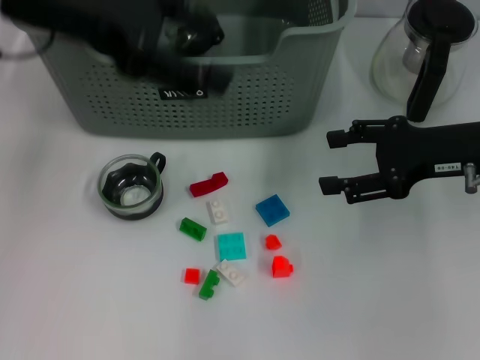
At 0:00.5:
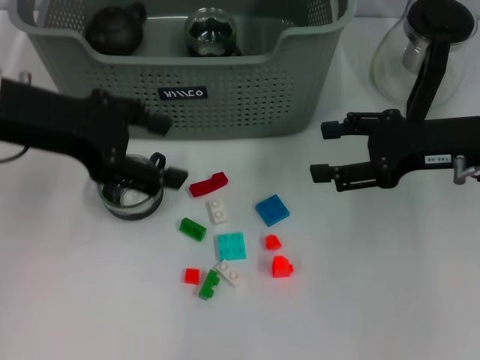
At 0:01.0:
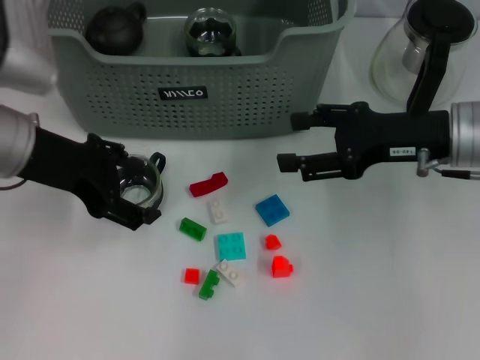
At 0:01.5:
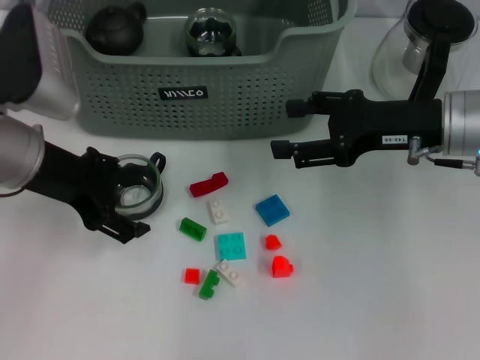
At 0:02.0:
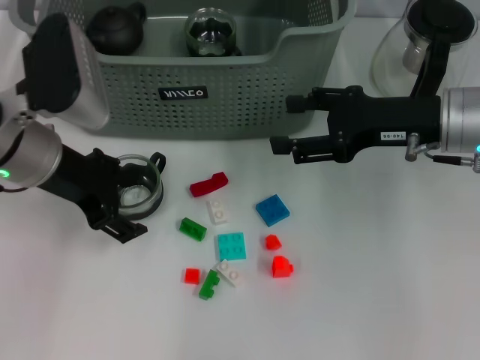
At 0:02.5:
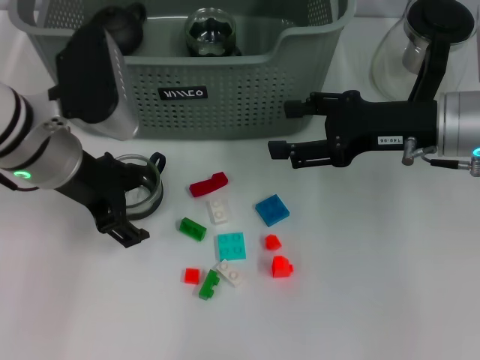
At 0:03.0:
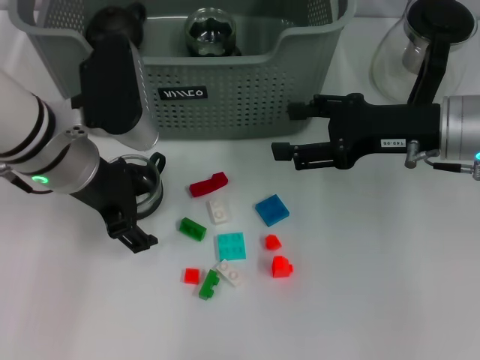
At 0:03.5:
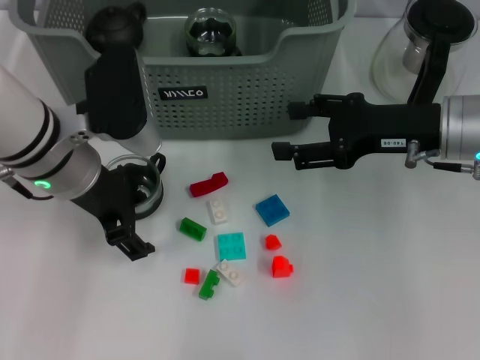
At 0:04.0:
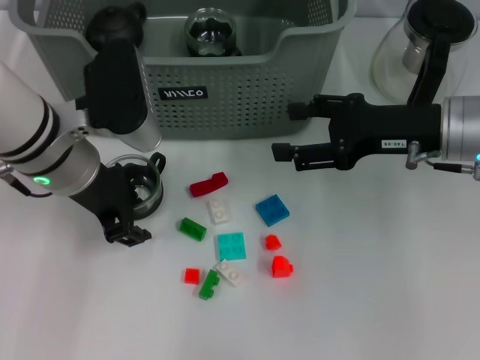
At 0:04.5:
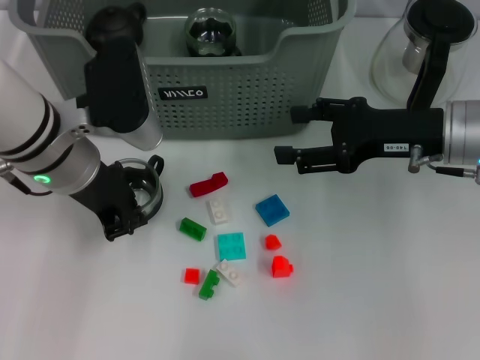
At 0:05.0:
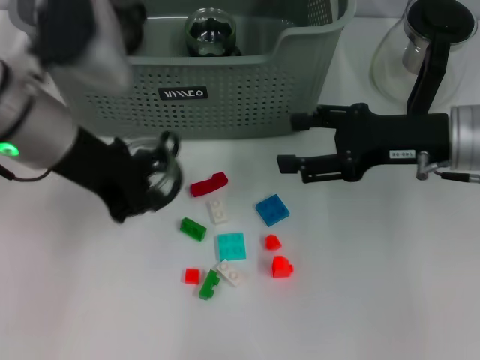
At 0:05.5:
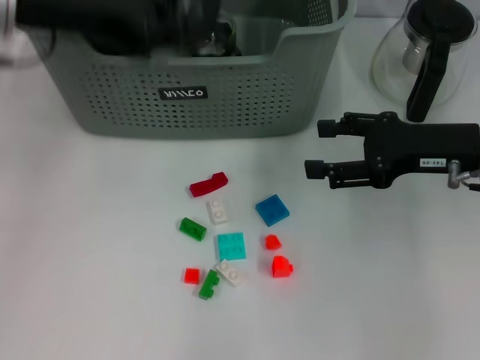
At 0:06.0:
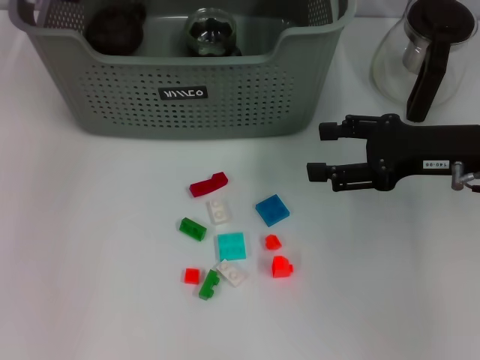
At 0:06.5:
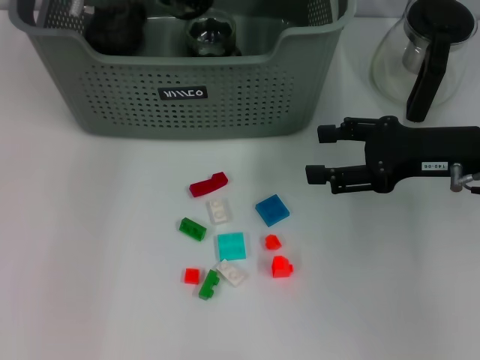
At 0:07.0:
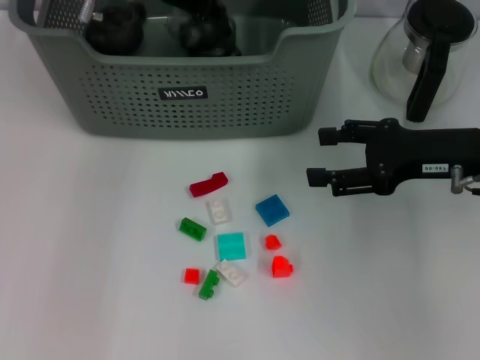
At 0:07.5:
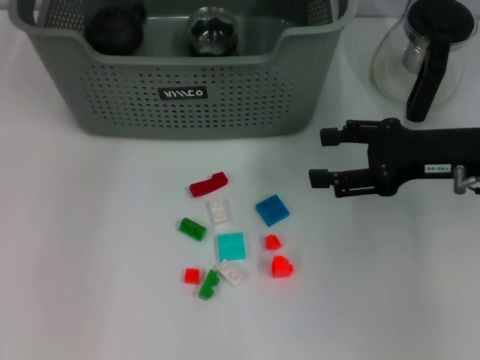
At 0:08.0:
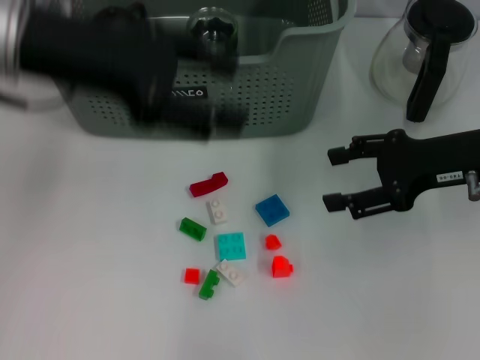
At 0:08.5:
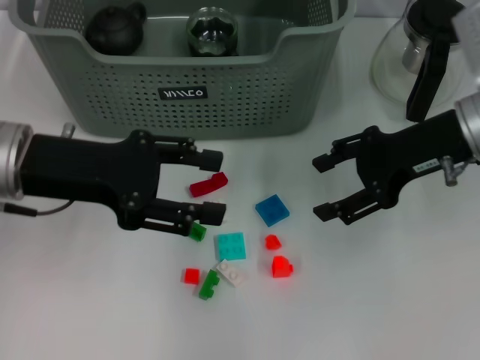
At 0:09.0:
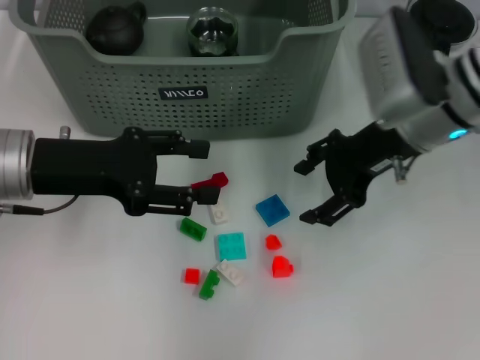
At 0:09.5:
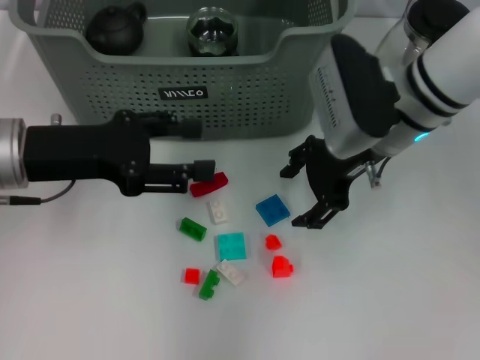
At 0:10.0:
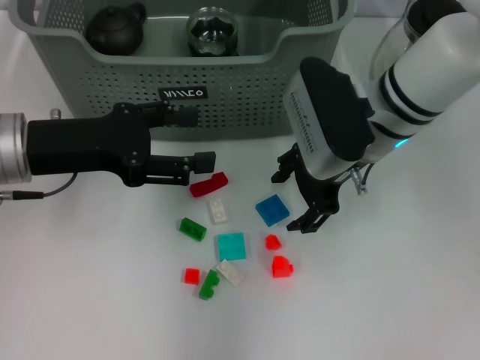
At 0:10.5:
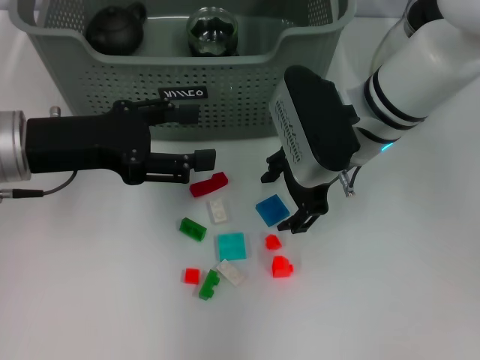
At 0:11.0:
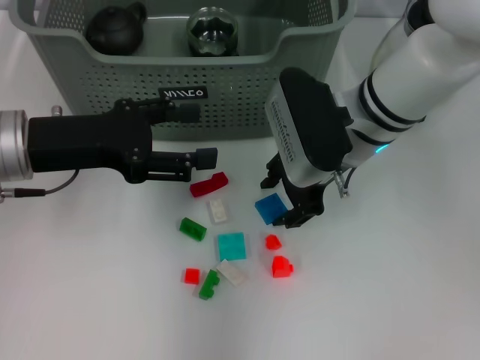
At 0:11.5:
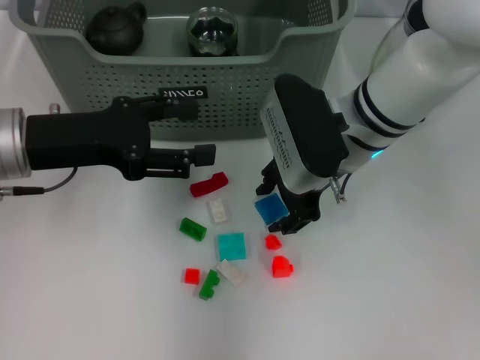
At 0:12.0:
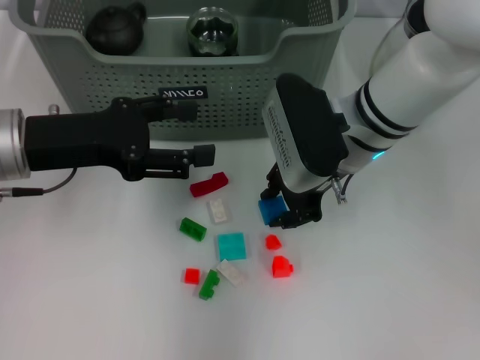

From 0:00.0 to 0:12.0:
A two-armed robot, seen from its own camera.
Task of the whole recording: pick up the teacup on the table and place it into the storage bin, pick up the block on the table and place it into the storage bin.
Step, from 0:00.0 to 0:04.0: Grasp the cup with left gripper.
Step, from 0:04.5 to 0:07.5: Place the cup in the storage box with left gripper.
Step, from 0:08.0 to 0:12.0: Grasp the dark blue block with right gripper.
From 0:00.0 to 0:02.0: The left gripper shifts some 15 cm downward.
From 0:02.0 to 0:04.0: The grippers stay close to where they were, moving slightly.
From 0:04.0 to 0:06.0: The left gripper goes roughly 15 cm forward and upward, and closes up.
From 0:06.0 to 0:08.0: The left gripper shifts about 15 cm backward, and opens its fingers.
From 0:08.0 to 0:10.0: The left gripper travels downward by approximately 10 cm, while the right gripper is displaced to the left by about 15 cm.
From 0:10.0 to 0:12.0: The right gripper closes its fingers.

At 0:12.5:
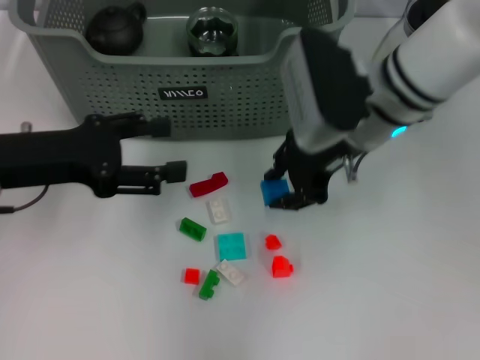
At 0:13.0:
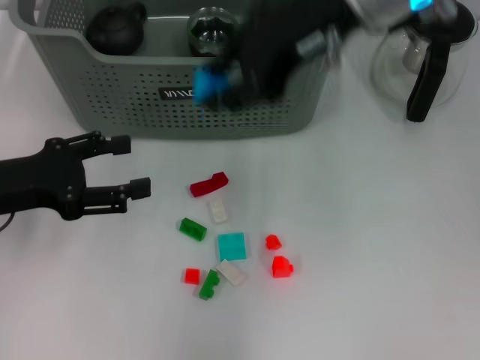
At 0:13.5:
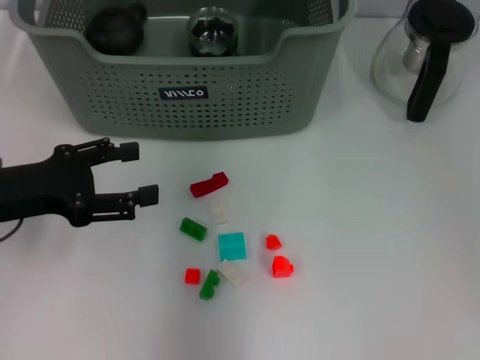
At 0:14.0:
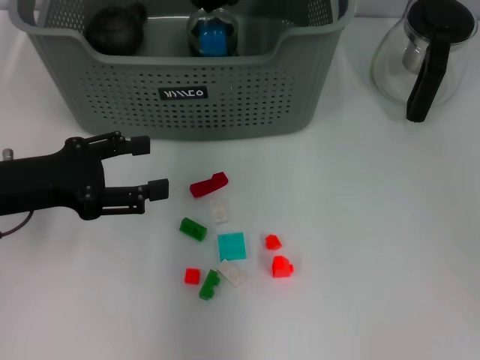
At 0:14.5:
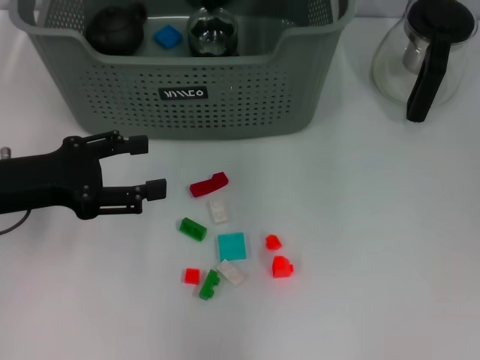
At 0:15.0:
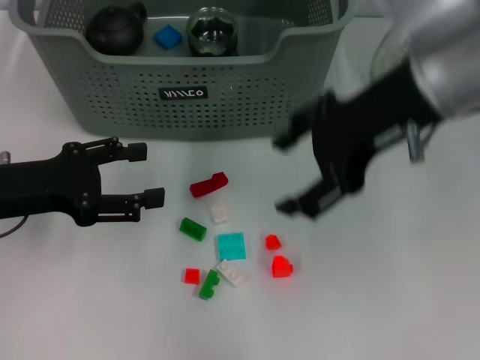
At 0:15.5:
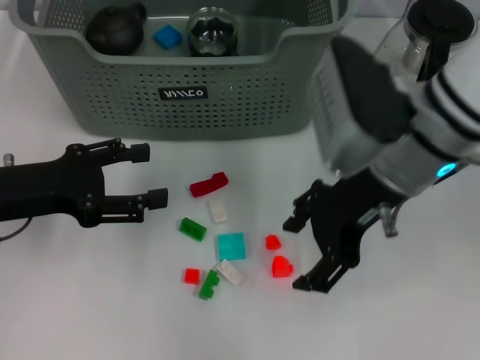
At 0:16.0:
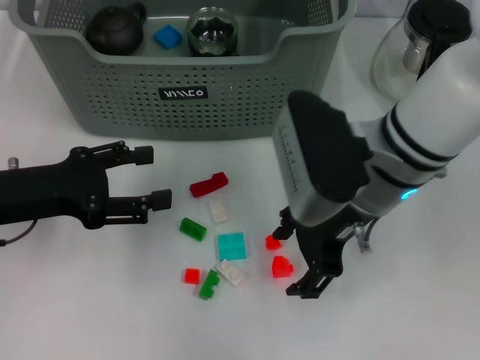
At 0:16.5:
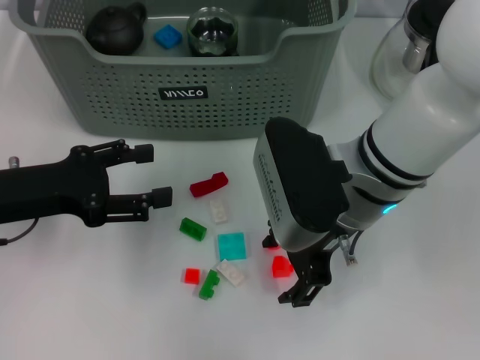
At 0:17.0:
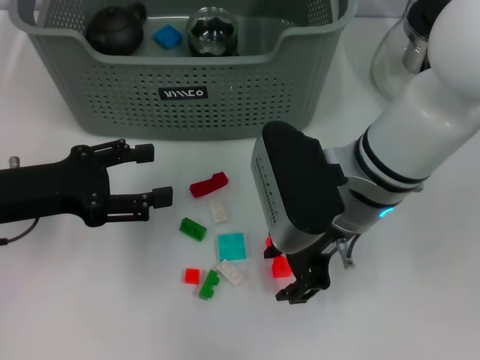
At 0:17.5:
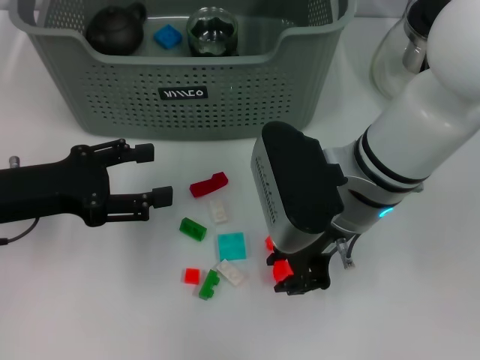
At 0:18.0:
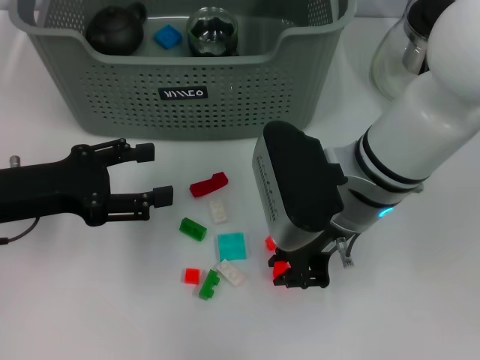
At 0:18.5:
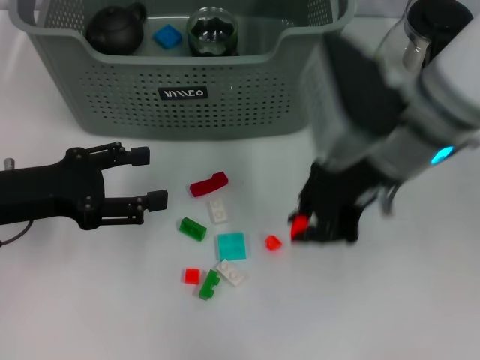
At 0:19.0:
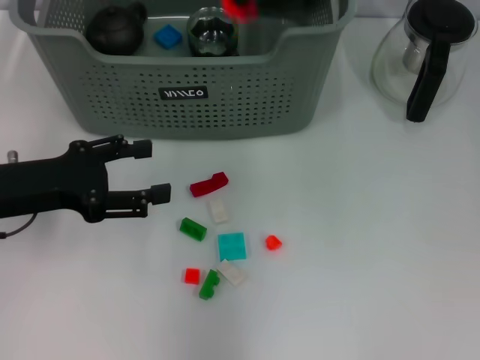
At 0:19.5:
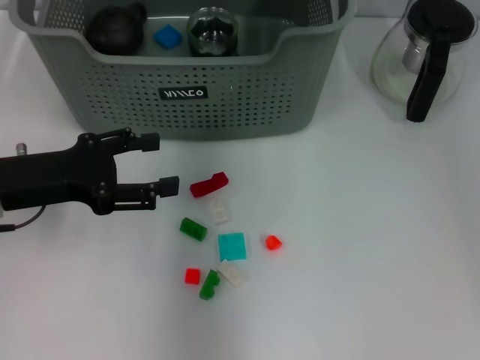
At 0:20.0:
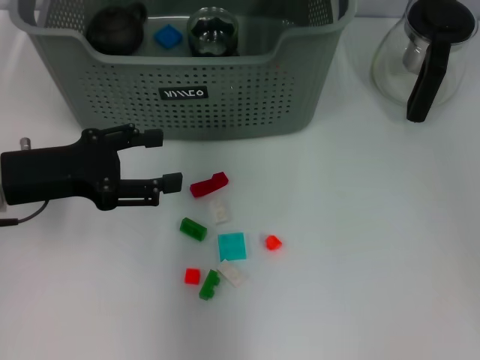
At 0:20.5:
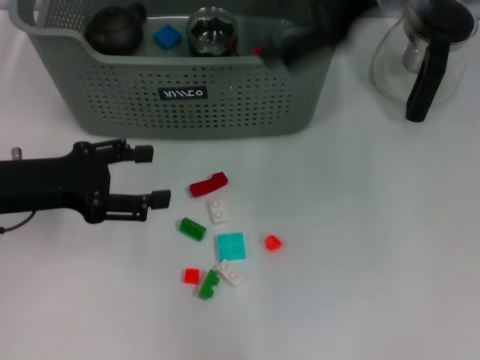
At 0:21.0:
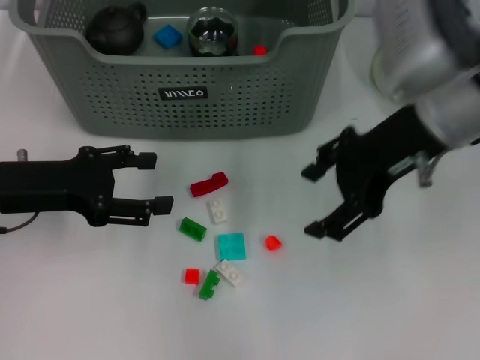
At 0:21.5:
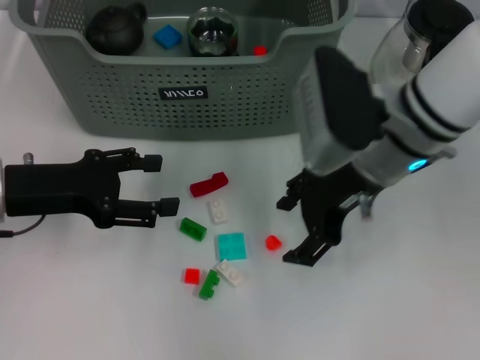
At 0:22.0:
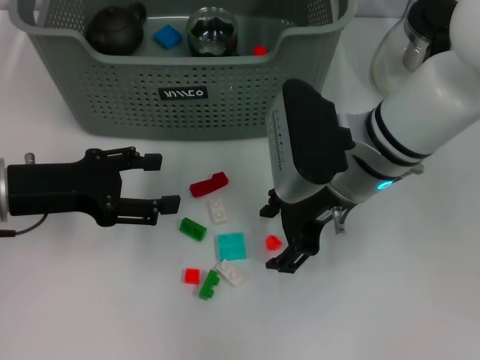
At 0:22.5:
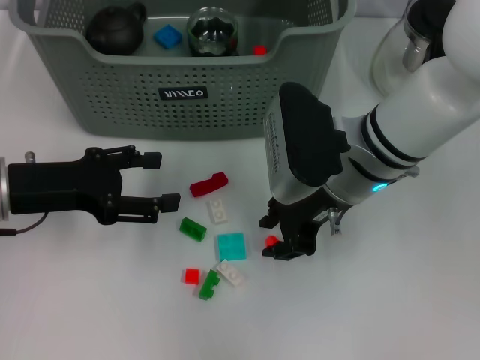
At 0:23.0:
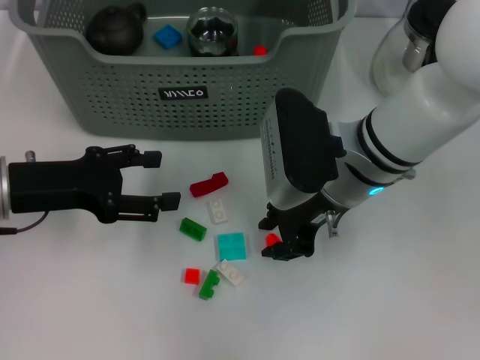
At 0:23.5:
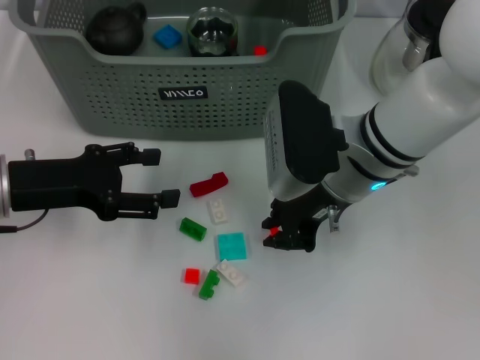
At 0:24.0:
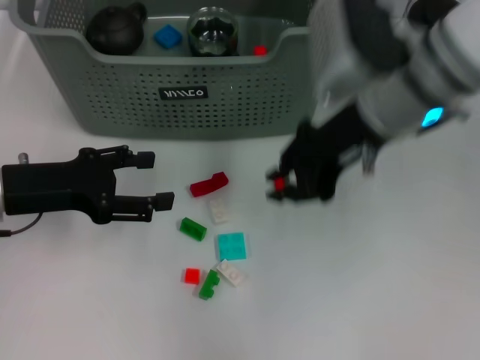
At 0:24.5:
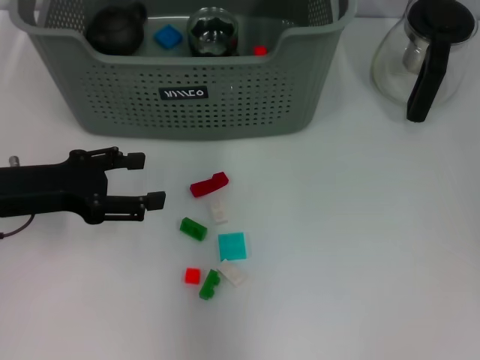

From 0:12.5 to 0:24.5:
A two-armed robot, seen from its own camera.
Task of the whole recording: pick up the teacup on the table and place it into the storage bin, pick up the block on the table and place it into the storage bin.
Step, from 0:12.5 to 0:14.0: Place the dark blue block in the storage box with right gripper.
Step, from 0:14.5 to 0:17.5: Grasp the orange block with right gripper.
Step, from 0:18.5 to 0:20.0: Place the orange block in the storage box with right gripper.
Step, from 0:20.5 to 0:23.0: Grasp the orange block with right gripper.
From 0:12.5 to 0:14.5: The right gripper moves up and down over some 15 cm, changing direction 2 times, and opens its fingers.
From 0:14.5 to 0:16.5: The right gripper travels downward and backward by about 20 cm.
From 0:16.5 to 0:18.5: The right gripper ends up about 5 cm from where it was, and closes up.
From 0:18.5 to 0:20.5: The right gripper moves up and down over about 15 cm, changing direction 2 times, and opens.
From 0:20.5 to 0:22.5: The right gripper moves downward, about 15 cm.
From 0:22.5 to 0:24.5: The right gripper moves upward, approximately 25 cm, and closes.

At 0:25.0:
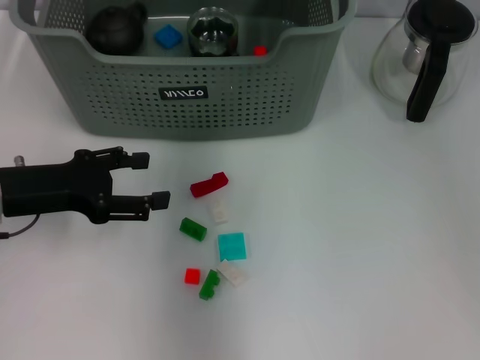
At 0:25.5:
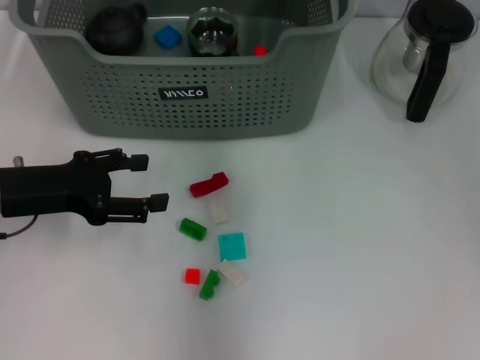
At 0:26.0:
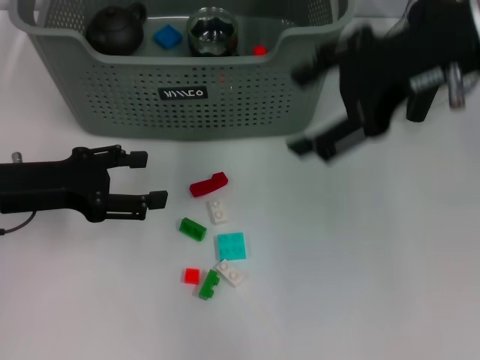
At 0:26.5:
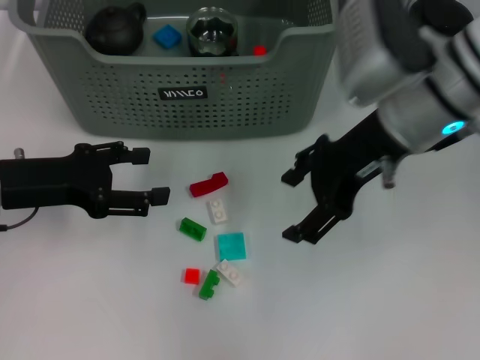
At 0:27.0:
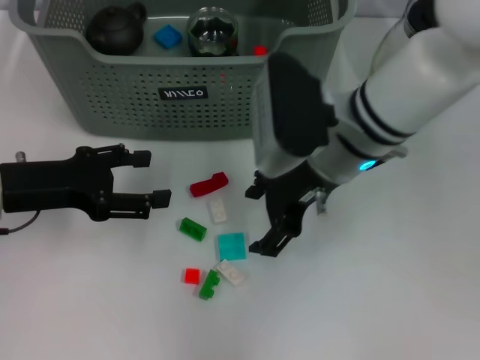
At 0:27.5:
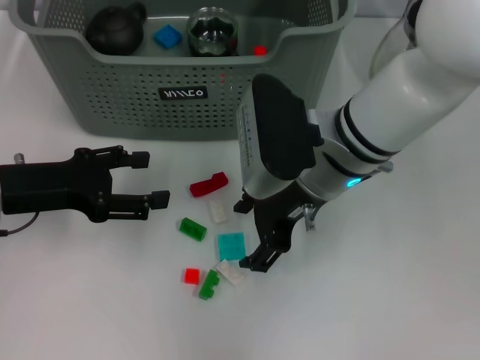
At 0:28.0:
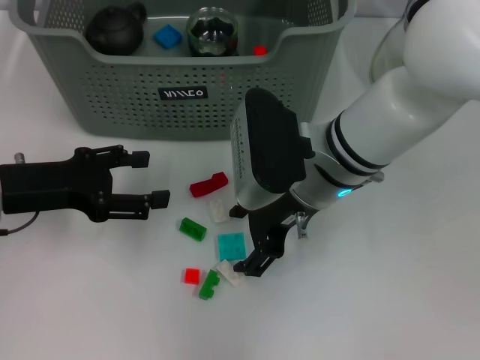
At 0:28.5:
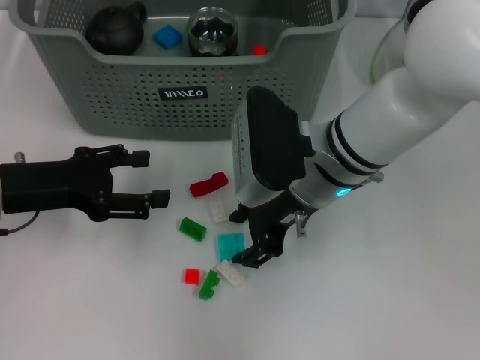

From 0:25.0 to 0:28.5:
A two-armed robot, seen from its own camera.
Task of the whole recording: pick up the teacup on the table and place it into the storage bin, pick up the block on the table and place it into the storage bin.
From 0:25.0 to 0:27.0: The right gripper shifts about 20 cm downward and backward, and opens.
From 0:27.0 to 0:28.5: The grippers stay close to where they were, moving slightly.
